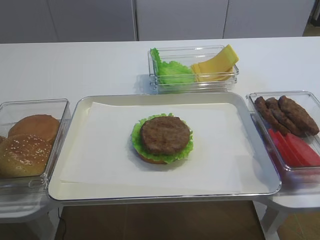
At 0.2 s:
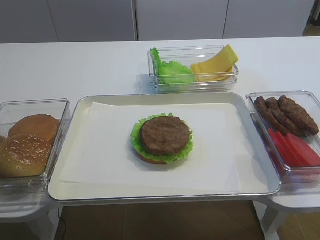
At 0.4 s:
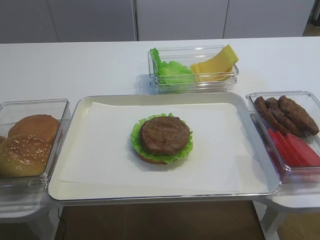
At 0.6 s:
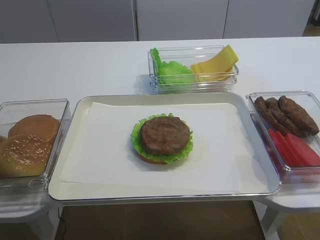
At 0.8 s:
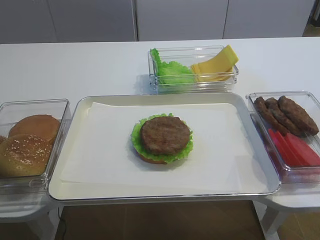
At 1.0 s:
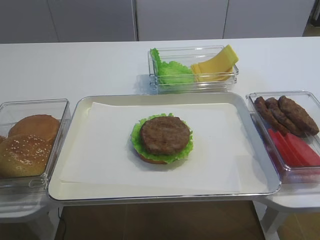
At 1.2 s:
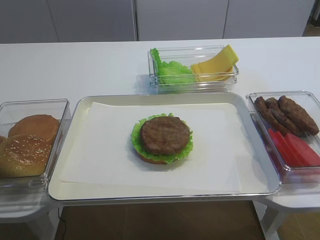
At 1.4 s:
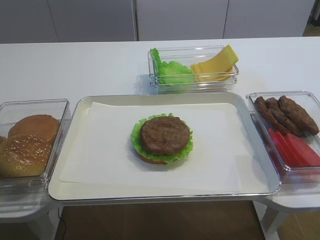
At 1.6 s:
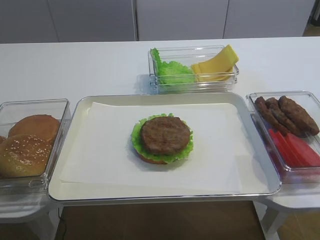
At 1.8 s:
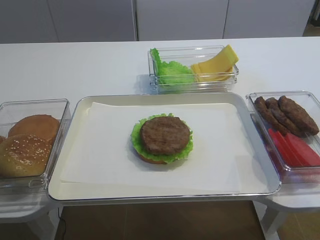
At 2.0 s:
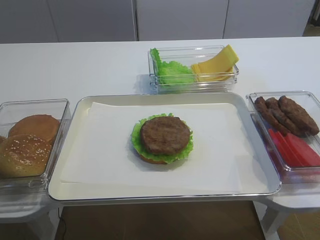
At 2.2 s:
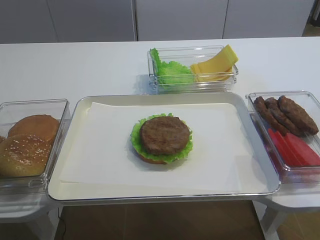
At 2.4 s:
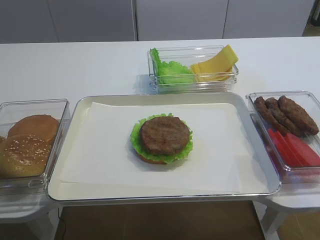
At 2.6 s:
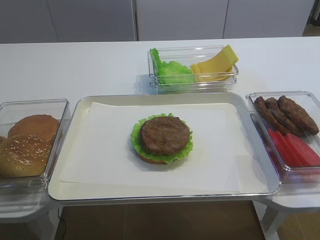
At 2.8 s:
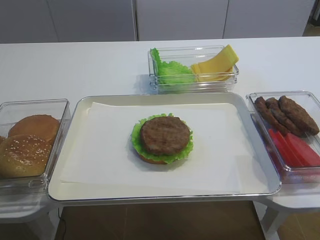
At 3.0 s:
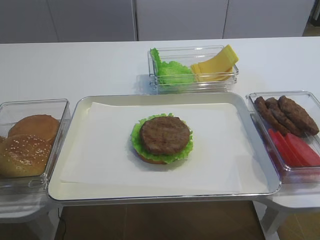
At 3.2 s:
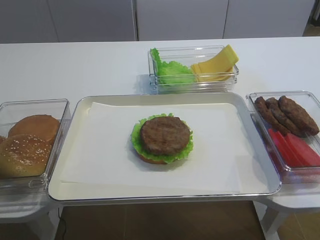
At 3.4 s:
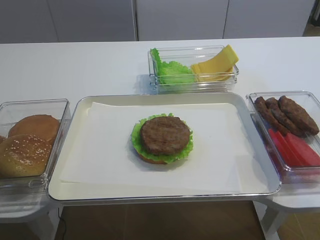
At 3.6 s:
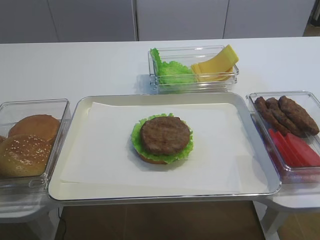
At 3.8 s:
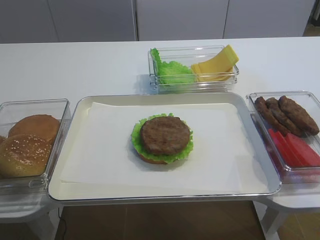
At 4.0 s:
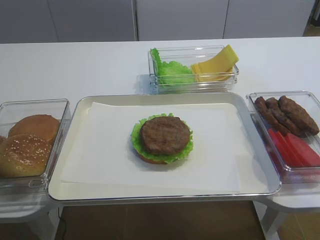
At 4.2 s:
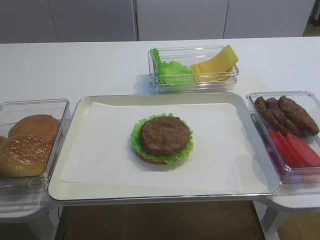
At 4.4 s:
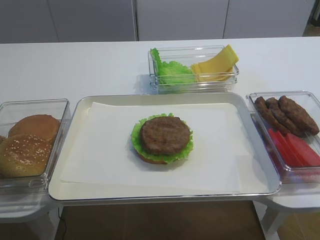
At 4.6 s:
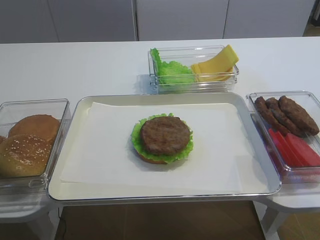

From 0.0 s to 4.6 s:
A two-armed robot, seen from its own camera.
From 3.0 s to 4.6 s: The two grippers keep their place.

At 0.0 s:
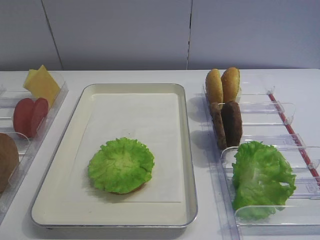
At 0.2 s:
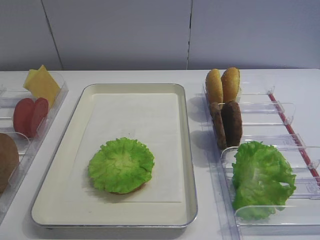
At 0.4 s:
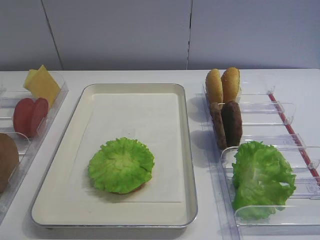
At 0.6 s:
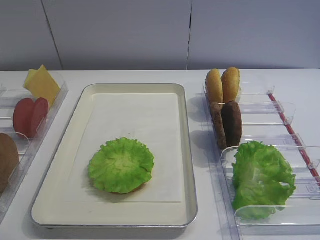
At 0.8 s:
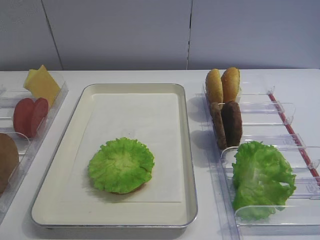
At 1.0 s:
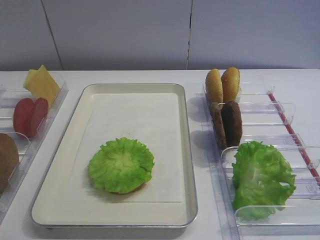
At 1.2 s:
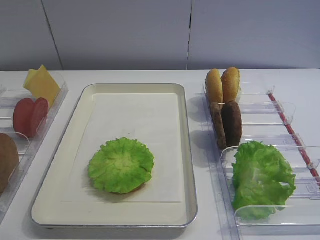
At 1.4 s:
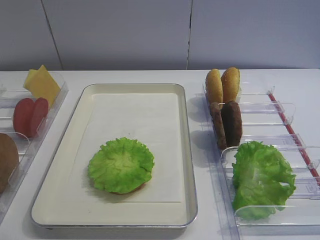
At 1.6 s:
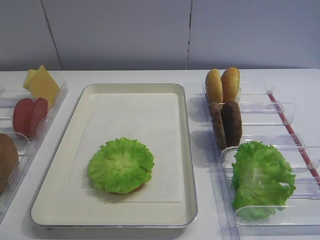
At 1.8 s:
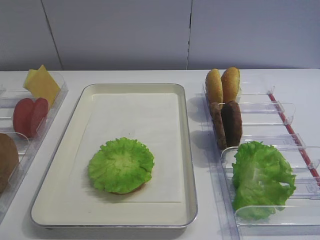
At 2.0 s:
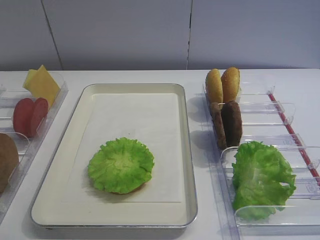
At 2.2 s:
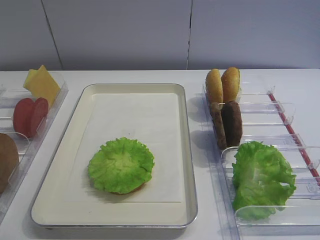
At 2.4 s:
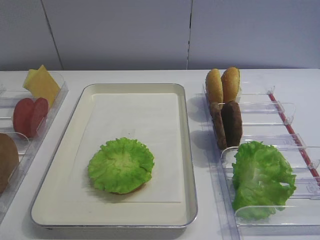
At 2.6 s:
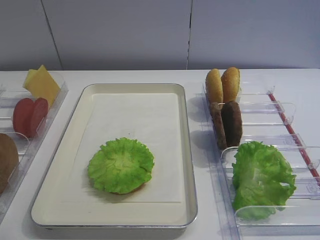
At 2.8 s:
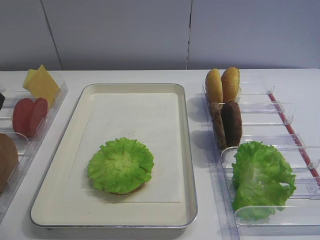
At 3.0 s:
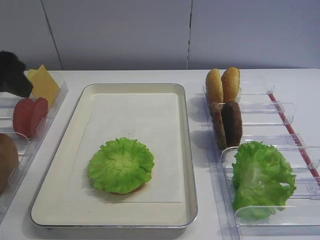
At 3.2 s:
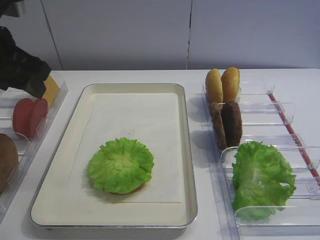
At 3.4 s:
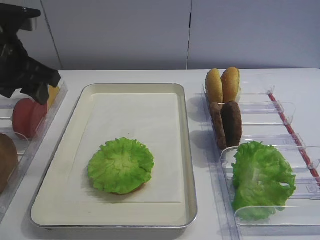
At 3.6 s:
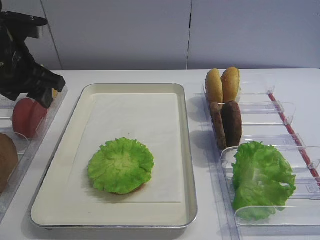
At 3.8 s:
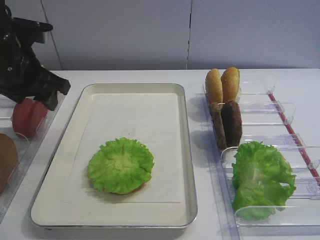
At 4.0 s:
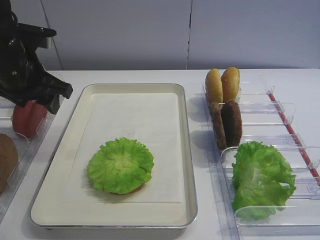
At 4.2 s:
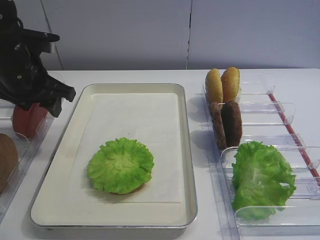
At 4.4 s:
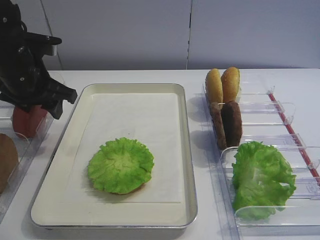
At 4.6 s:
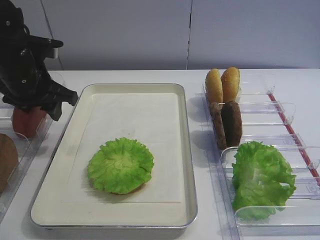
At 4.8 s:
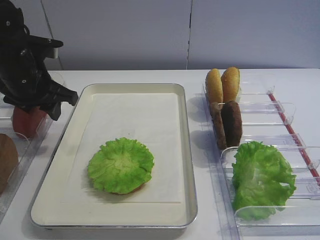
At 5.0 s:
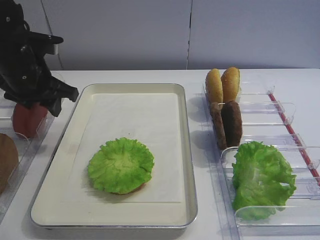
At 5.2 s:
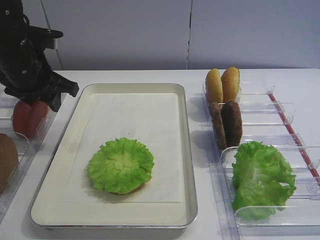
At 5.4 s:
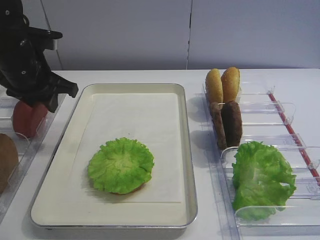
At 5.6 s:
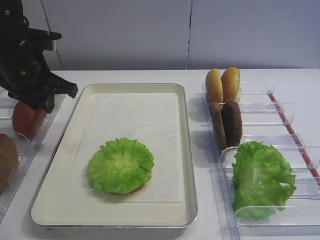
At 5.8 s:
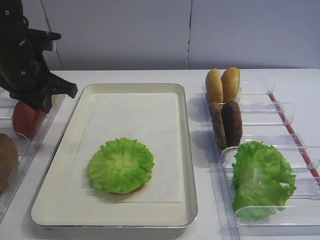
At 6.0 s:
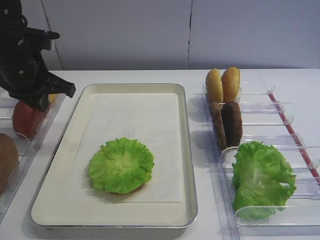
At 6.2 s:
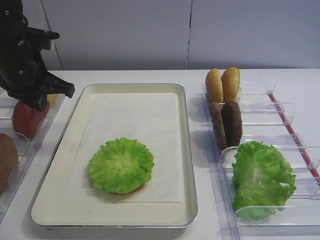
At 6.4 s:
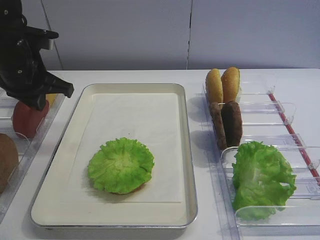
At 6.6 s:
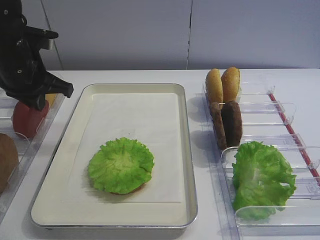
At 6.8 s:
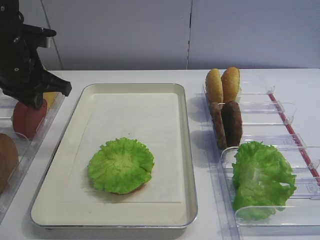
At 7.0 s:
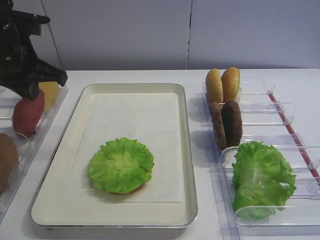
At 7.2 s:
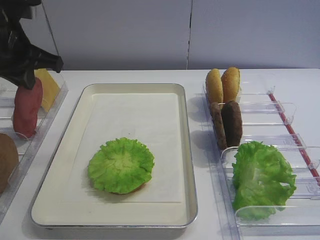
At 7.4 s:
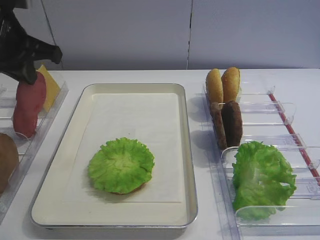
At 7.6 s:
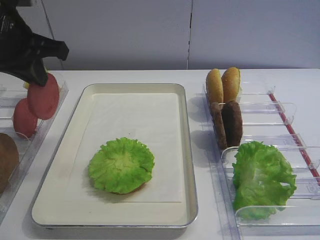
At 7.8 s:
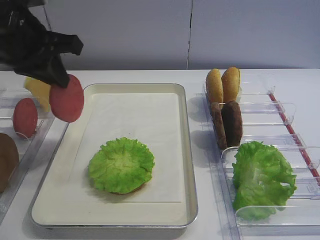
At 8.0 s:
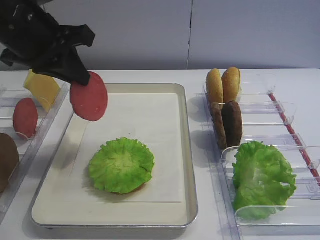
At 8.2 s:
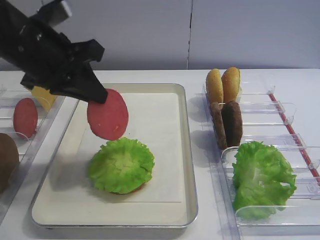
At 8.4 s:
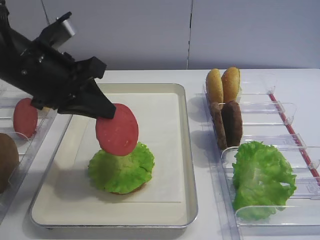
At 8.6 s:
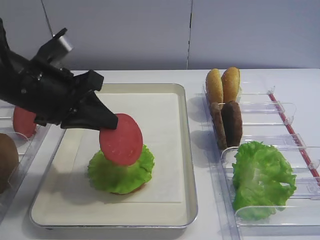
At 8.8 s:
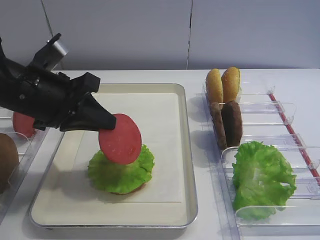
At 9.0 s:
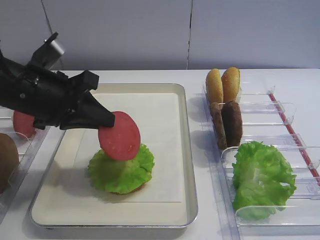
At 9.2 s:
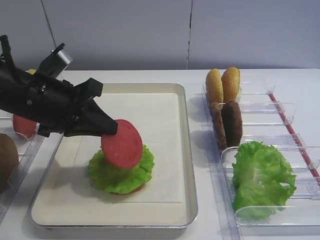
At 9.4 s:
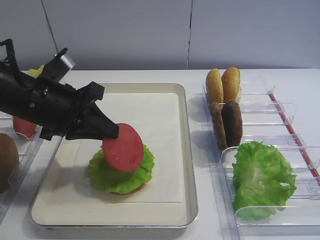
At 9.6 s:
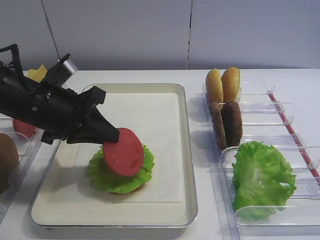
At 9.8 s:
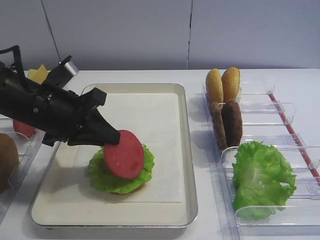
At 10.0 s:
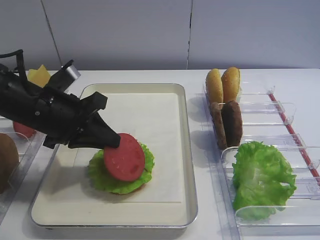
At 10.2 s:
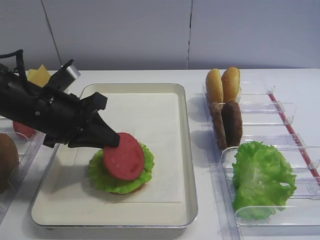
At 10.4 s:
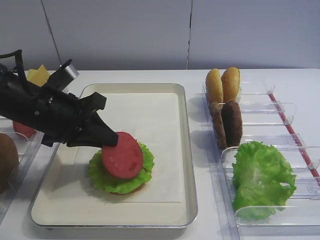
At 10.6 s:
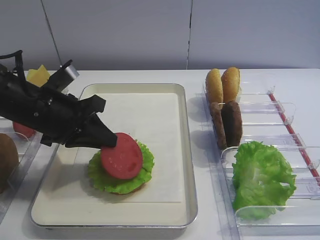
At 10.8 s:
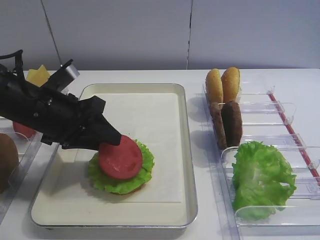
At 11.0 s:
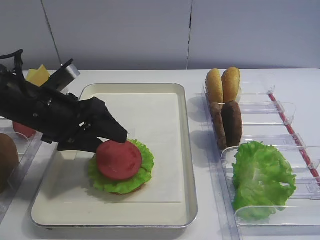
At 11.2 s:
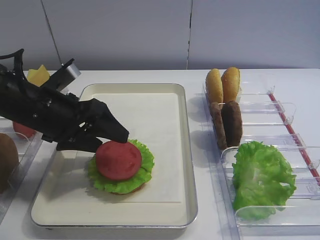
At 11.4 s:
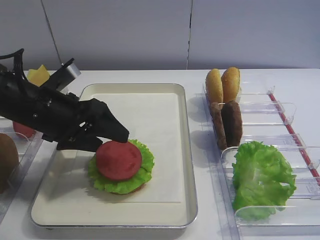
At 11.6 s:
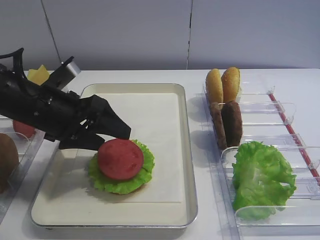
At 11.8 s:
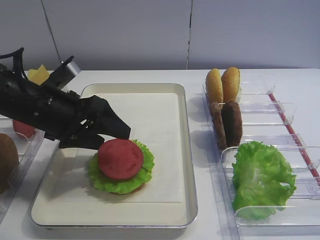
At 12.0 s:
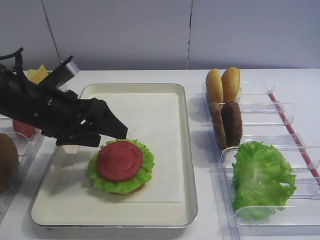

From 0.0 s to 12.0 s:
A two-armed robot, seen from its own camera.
Step, from 0.0 s to 7.4 s: Pick up the tomato slice with the left gripper.
From 1.6 s to 3.0 s: The left gripper moves forward, some 25 cm.
From 3.0 s to 4.4 s: The left gripper travels forward and downward by roughly 15 cm.
From 4.4 s to 6.0 s: The left gripper closes its fingers.
From 6.0 s to 7.6 s: The left gripper heads upward, covering about 10 cm.
From 7.6 s to 9.0 s: The left gripper travels downward by some 10 cm.
From 9.0 s to 10.4 s: The grippers make only small movements.
From 10.4 s to 12.0 s: The left gripper opens.

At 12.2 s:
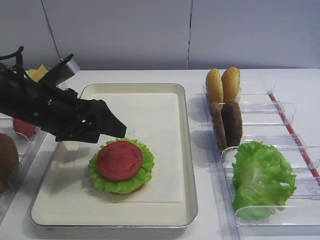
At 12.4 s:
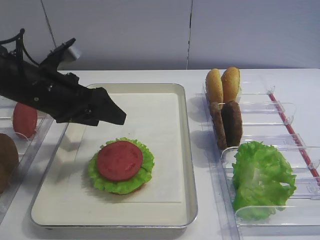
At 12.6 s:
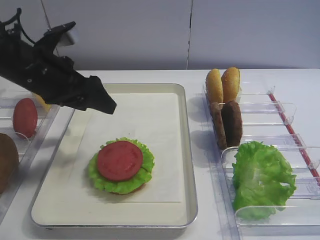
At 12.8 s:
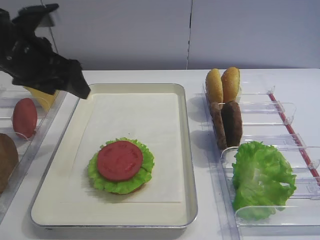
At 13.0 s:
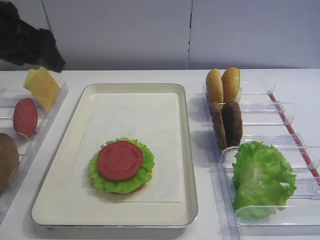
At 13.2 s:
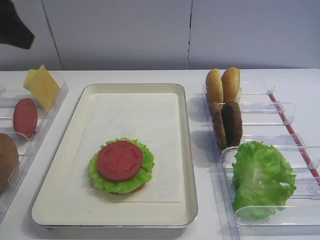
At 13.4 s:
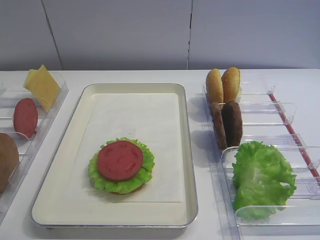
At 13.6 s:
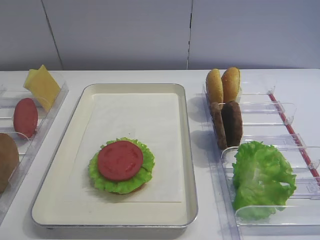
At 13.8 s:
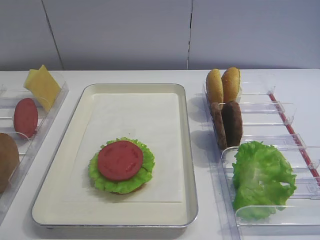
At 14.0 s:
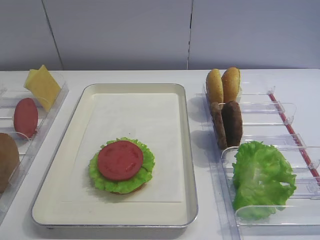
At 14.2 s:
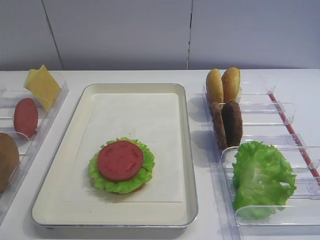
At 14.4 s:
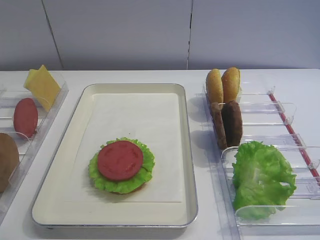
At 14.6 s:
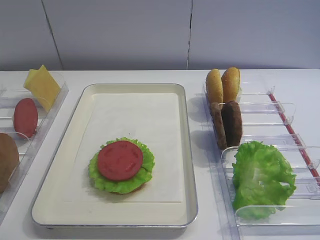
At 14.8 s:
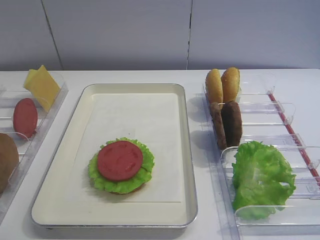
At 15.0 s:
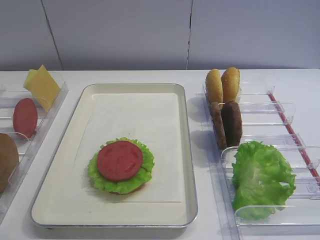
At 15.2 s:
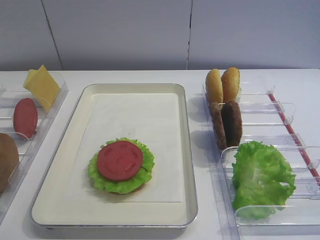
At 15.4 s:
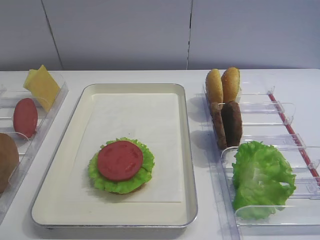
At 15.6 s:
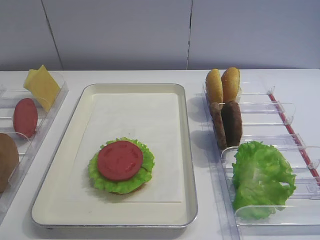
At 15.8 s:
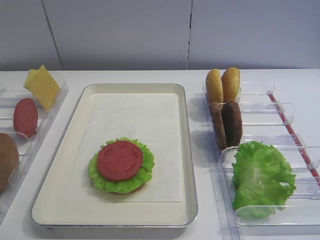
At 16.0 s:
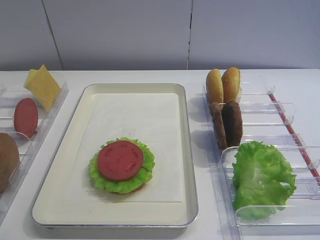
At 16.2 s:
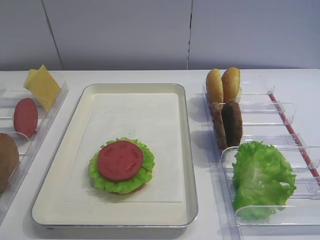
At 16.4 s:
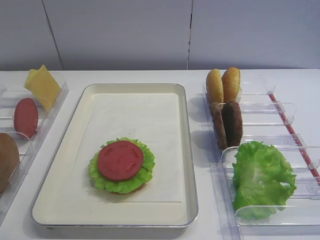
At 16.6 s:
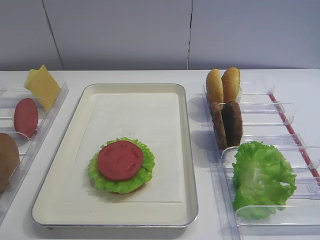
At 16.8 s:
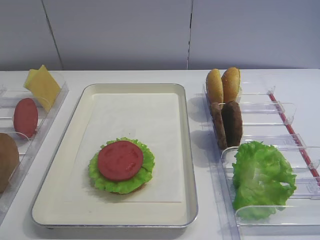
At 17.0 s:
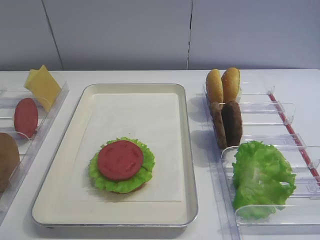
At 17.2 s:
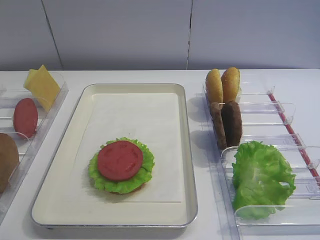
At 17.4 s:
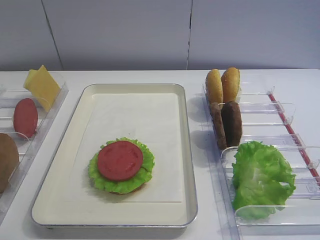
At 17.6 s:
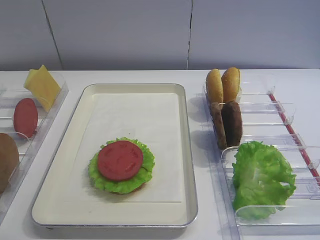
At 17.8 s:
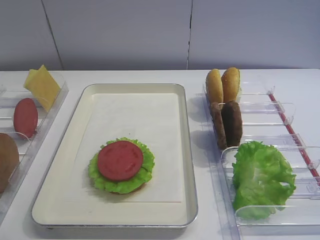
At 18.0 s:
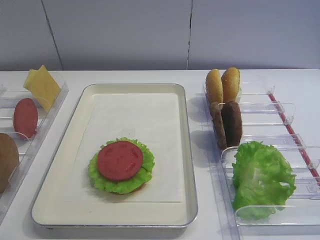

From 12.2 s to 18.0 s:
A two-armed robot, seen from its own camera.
From 12.2 s to 13.6 s: The left gripper goes approximately 25 cm backward, upward and to the left.
